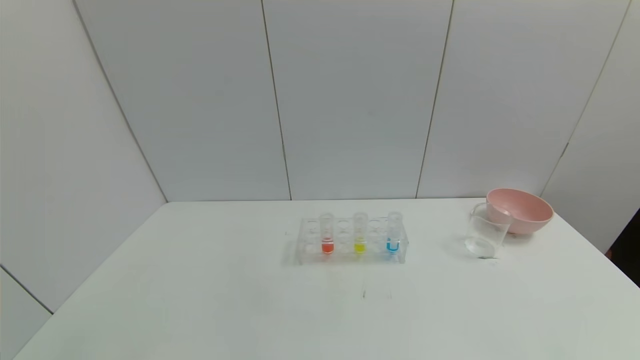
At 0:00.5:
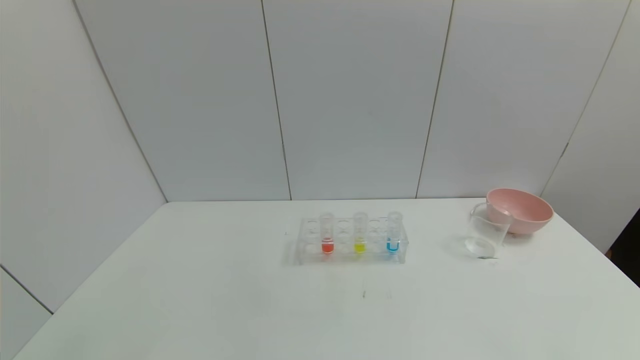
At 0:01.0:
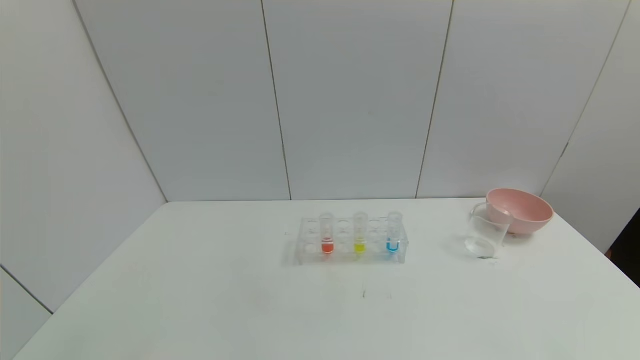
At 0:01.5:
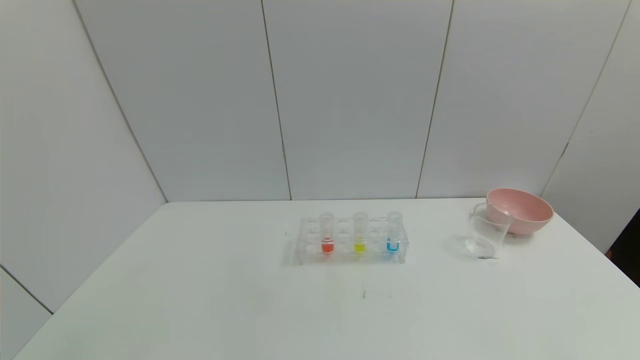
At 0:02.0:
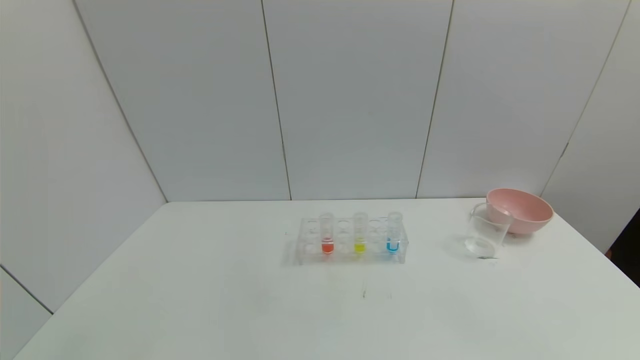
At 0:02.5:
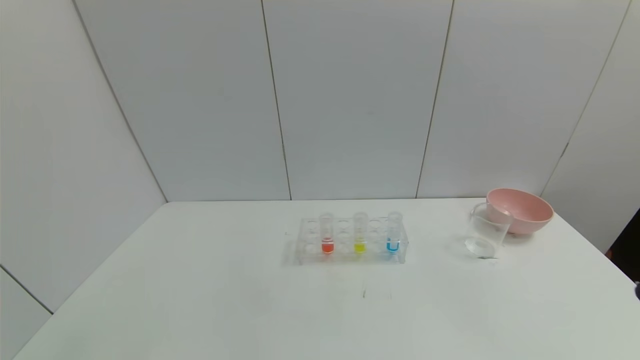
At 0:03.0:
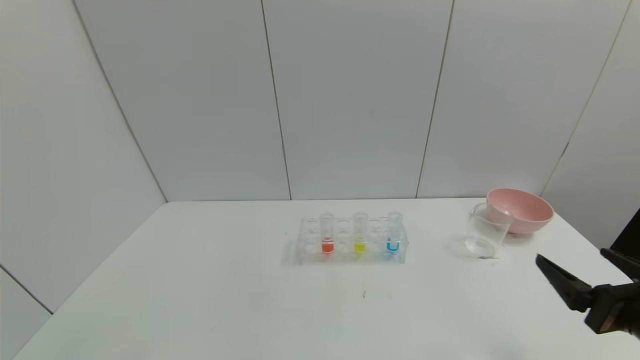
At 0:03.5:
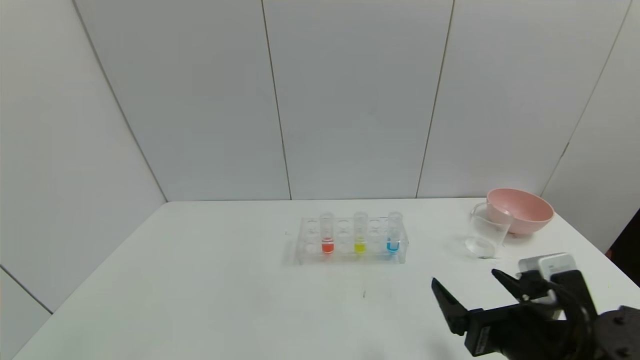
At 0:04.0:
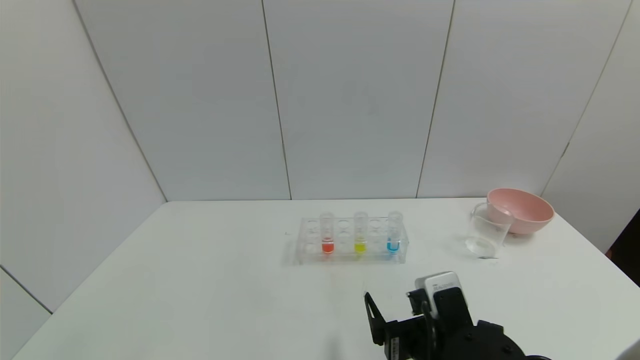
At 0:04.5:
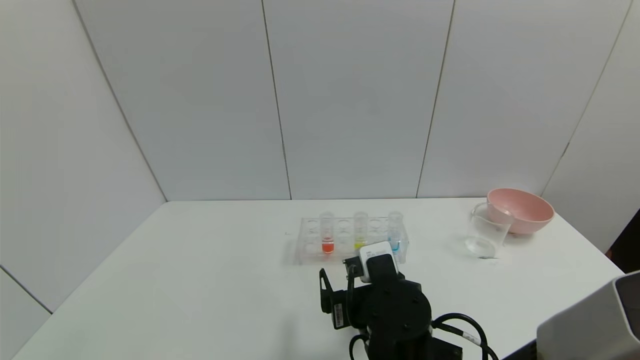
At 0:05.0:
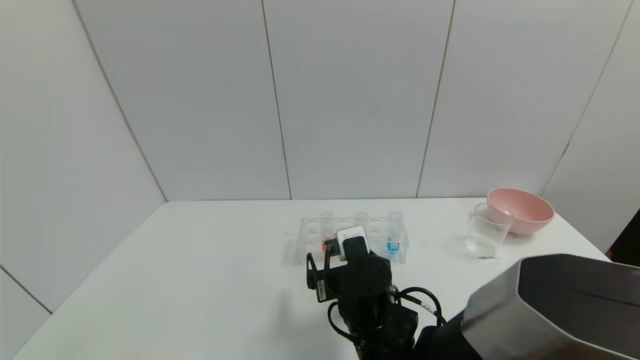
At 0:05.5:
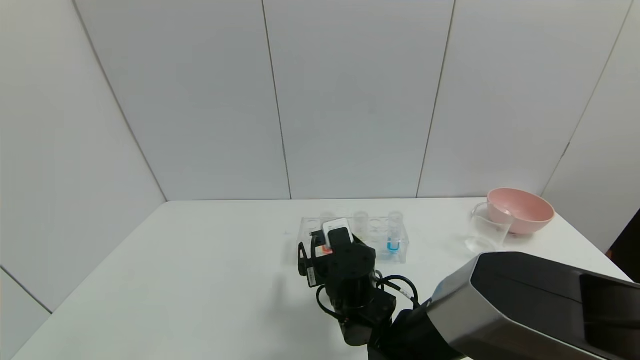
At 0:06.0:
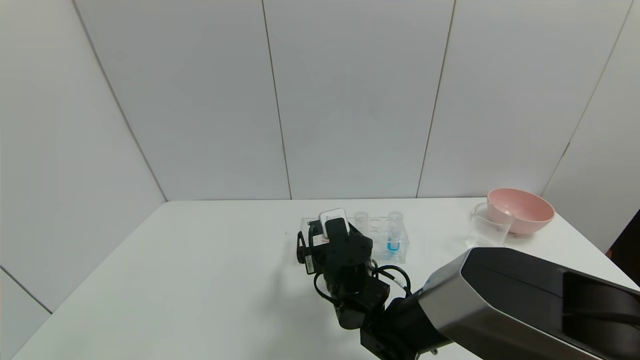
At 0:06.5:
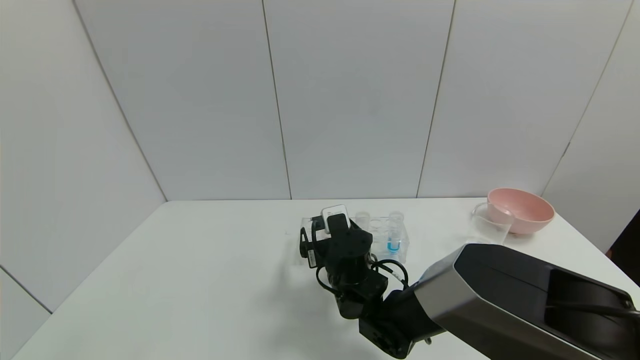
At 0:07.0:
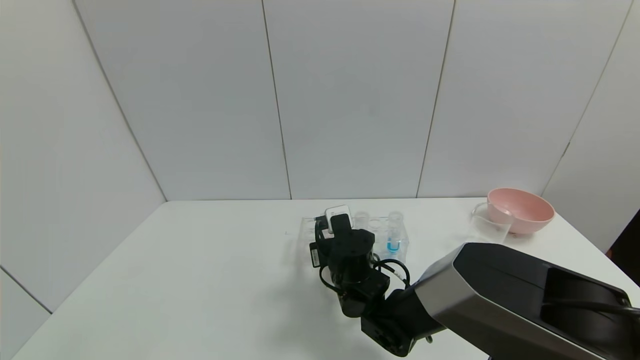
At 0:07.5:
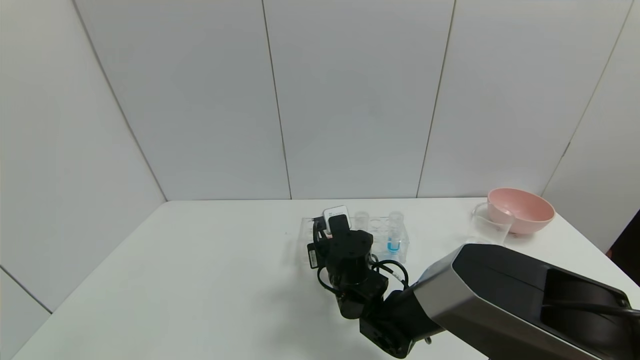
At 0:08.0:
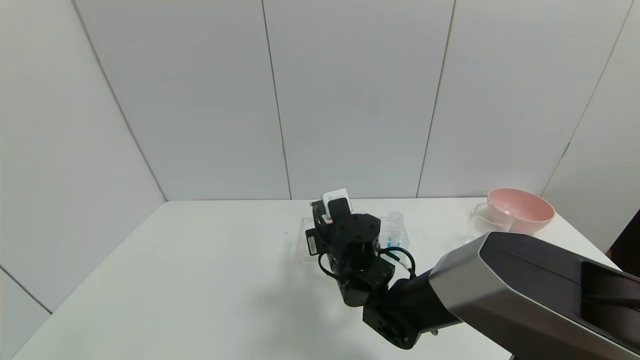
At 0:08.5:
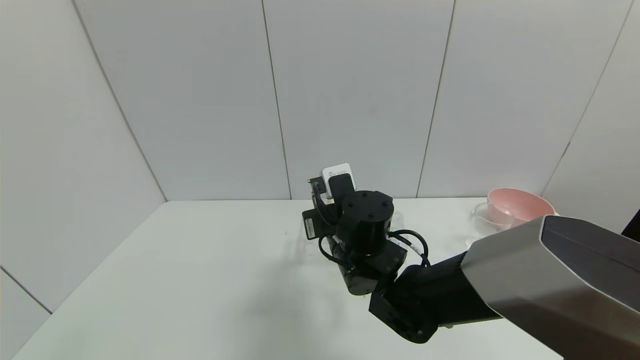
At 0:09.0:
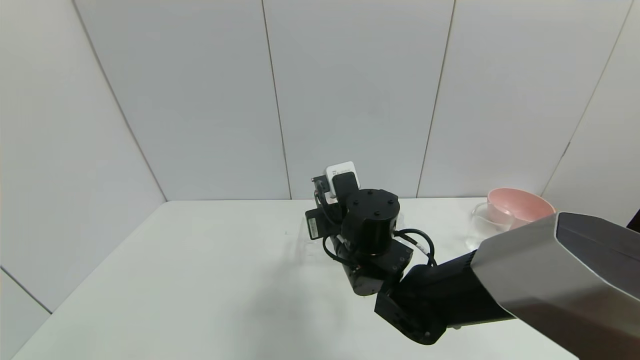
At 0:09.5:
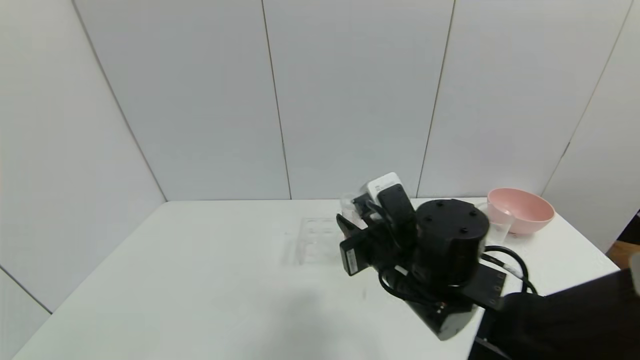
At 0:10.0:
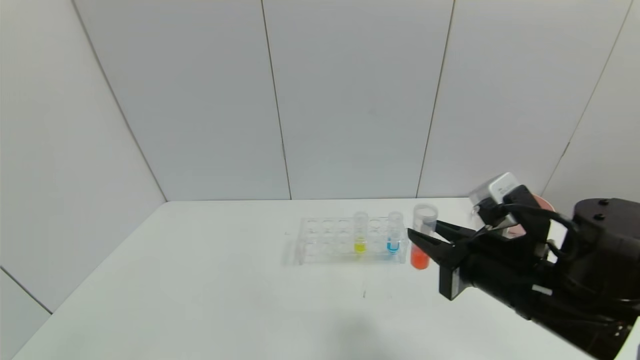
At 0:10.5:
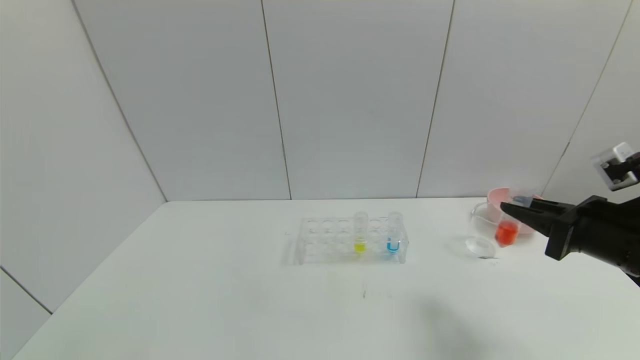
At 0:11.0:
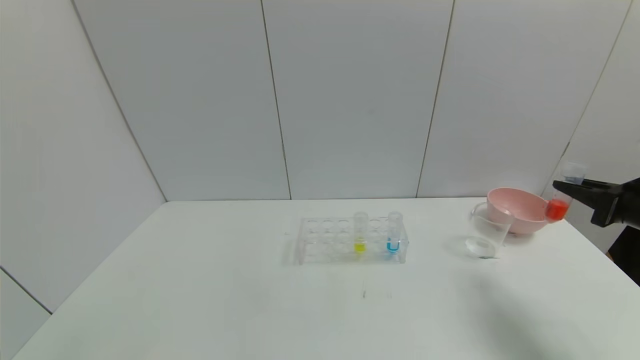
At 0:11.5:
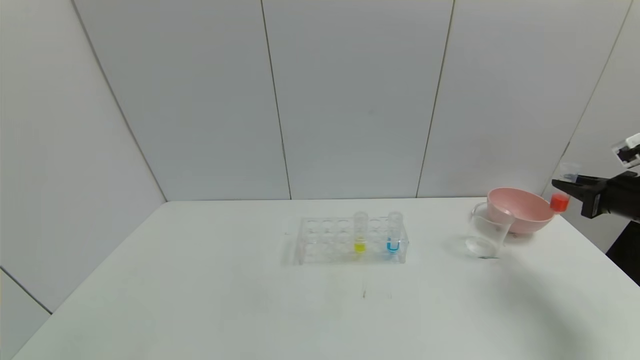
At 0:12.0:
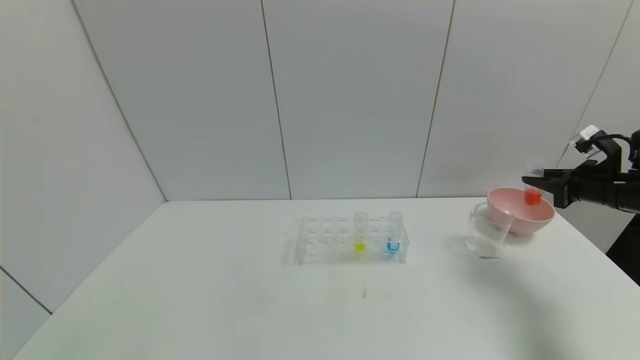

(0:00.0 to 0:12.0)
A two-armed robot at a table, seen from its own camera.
Task of the whole recording: pick up the test tube with red pigment and the test tube with blue pigment by grippers and pour them into the container.
Step, 0:00.0 - 0:07.0: Grasp the red reagent with the right gripper.
0:02.0 - 0:04.0: The right gripper goes about 30 cm to the left and forward.
0:04.0 - 0:06.0: The right gripper travels forward and to the left by approximately 20 cm.
0:06.0 - 0:08.0: The right gripper closes.
0:08.0 - 0:10.0: The right gripper moves to the right, backward and upward, about 25 cm.
0:10.0 - 0:12.0: The right gripper is displaced to the right and forward by about 30 cm.

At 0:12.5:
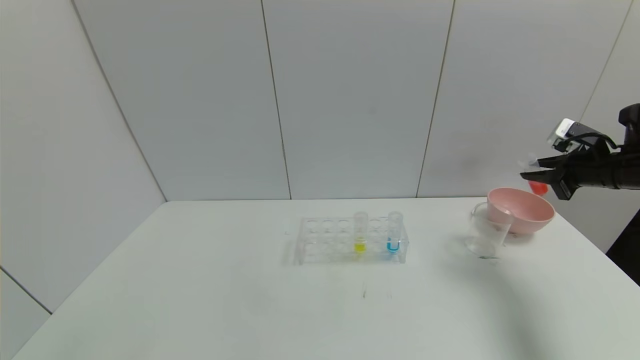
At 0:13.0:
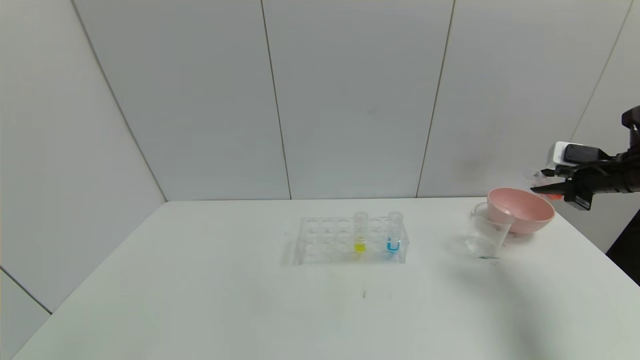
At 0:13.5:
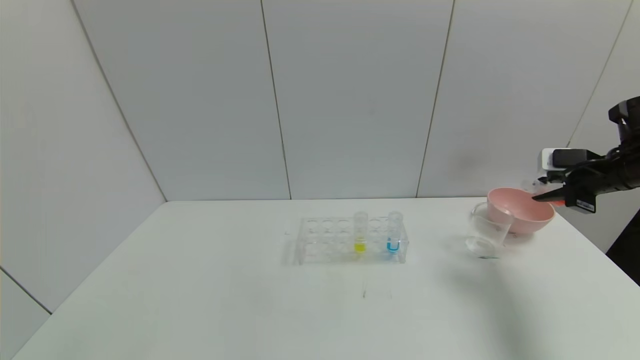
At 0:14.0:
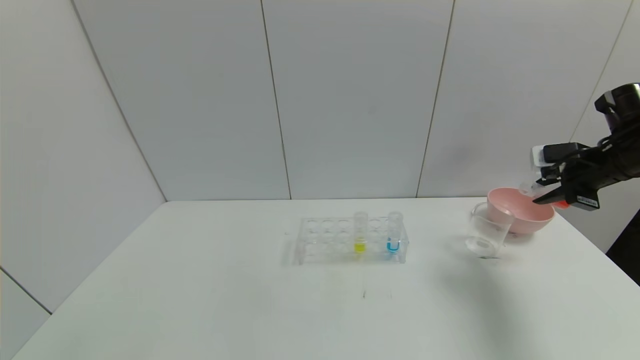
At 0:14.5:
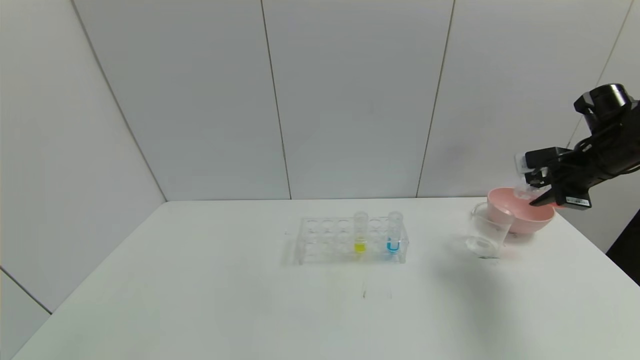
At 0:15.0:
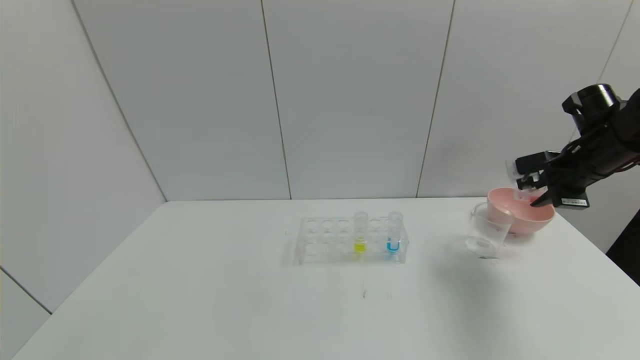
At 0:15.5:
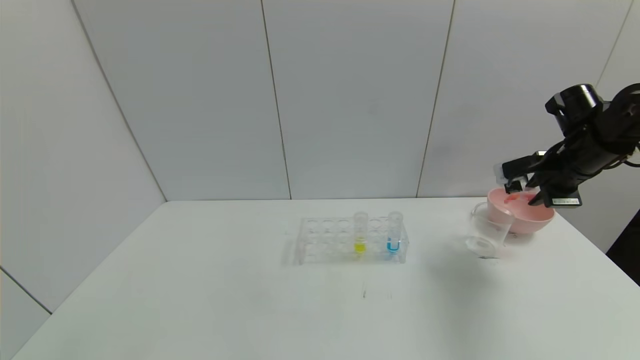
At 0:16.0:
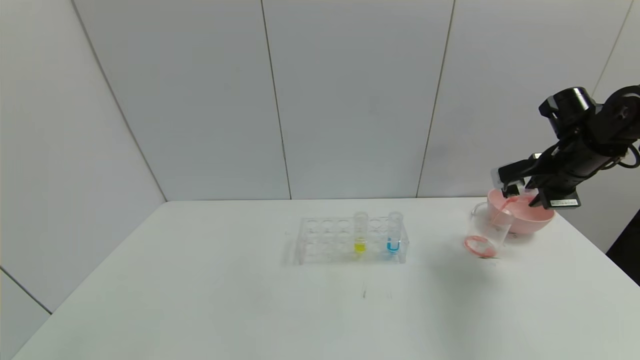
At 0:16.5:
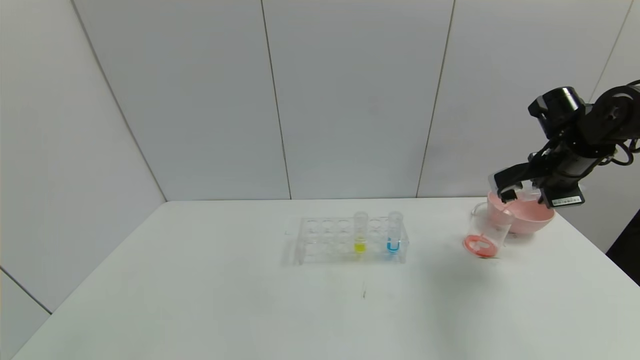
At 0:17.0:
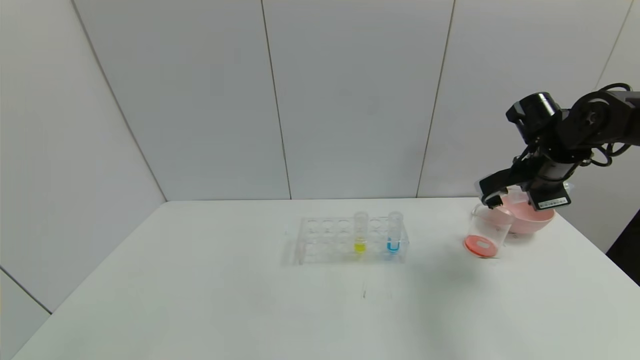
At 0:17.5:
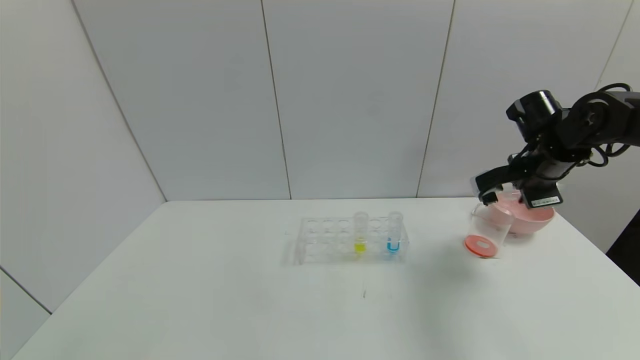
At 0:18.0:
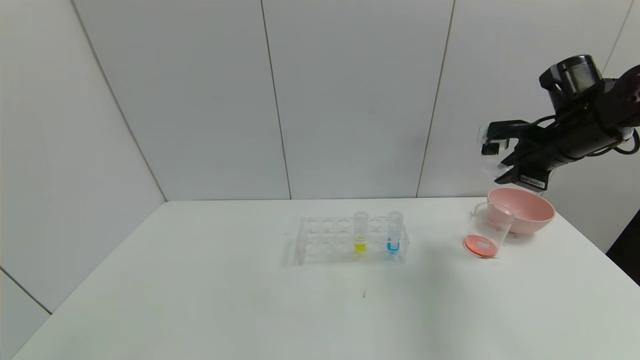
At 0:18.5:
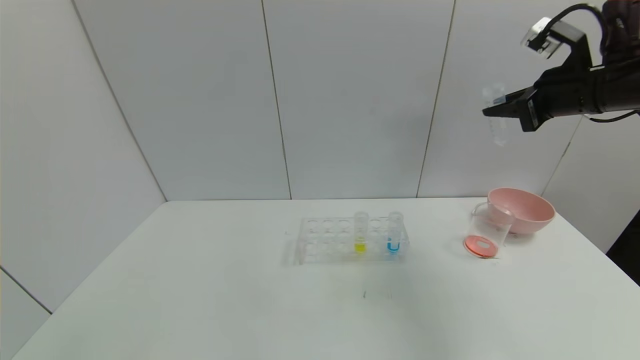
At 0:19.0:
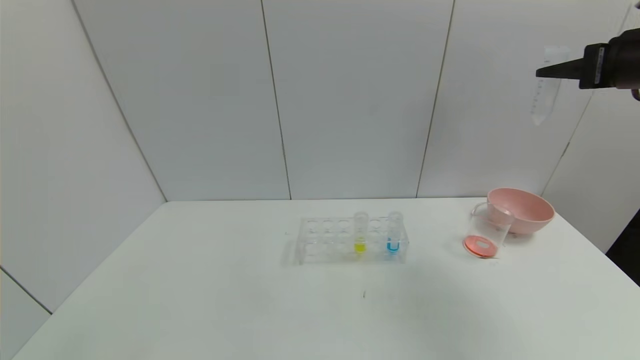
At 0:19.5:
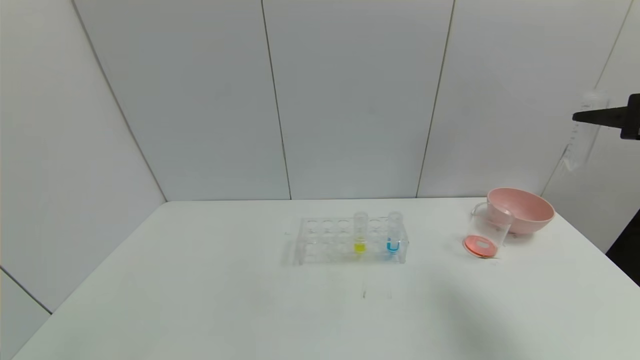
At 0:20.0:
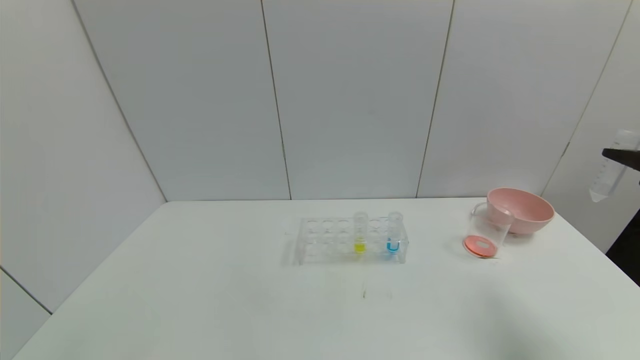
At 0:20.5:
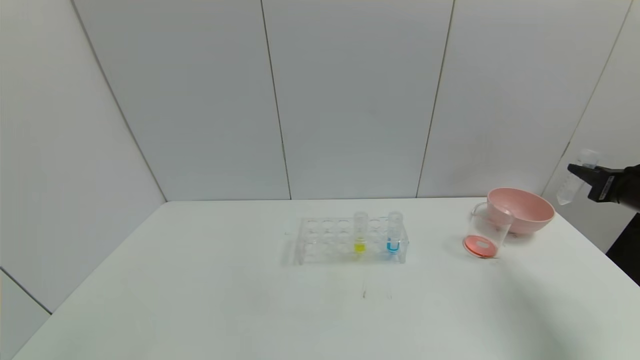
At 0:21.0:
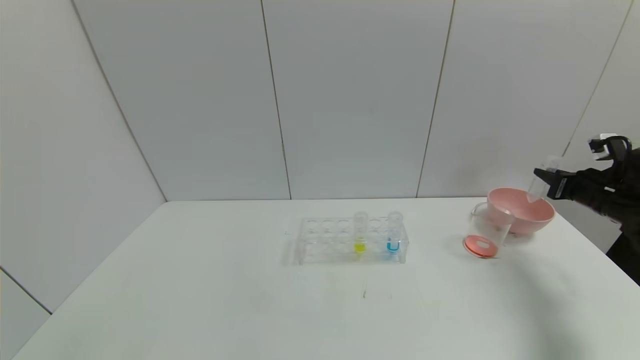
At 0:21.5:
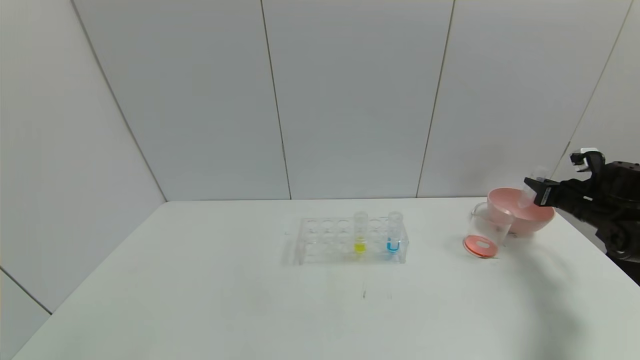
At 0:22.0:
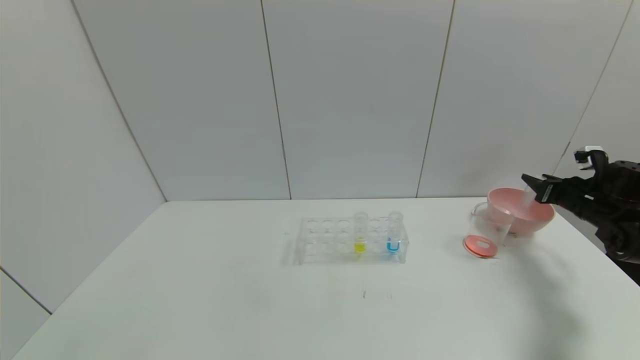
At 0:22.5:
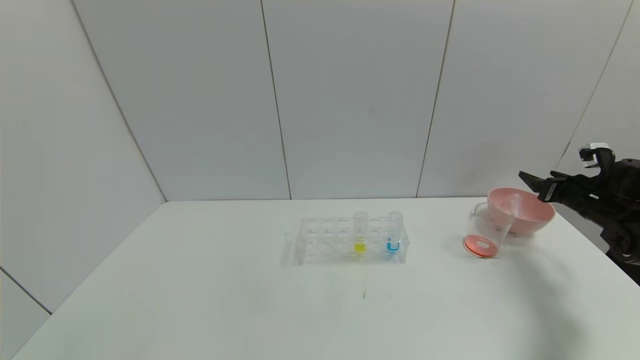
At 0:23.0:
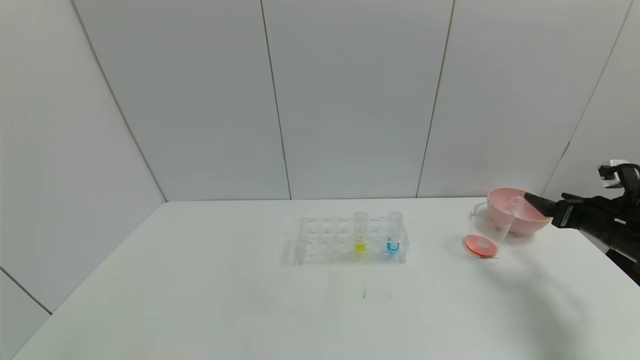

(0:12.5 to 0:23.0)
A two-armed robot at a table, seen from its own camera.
Task of the whole recording: pick up the test tube with red pigment and the test tube with blue pigment by grippers and pour them into the container.
Step, 0:12.5 - 0:16.5: Pour the red reagent into the graduated cylinder with the right gripper.
Step, 0:17.0 - 0:22.0: Place the test tube into the bowl with the right gripper.
0:12.5 - 0:14.5: The right gripper changes place by some 5 cm.
0:14.5 - 0:16.5: The right gripper is displaced to the left by approximately 5 cm.
0:16.5 - 0:19.0: The right gripper shifts some 15 cm upward and backward.
0:19.0 - 0:21.0: The right gripper heads downward and to the right, covering approximately 25 cm.
0:21.0 - 0:23.0: The right gripper moves backward, roughly 5 cm, and opens up.
